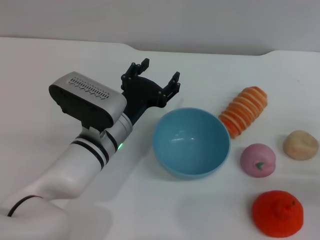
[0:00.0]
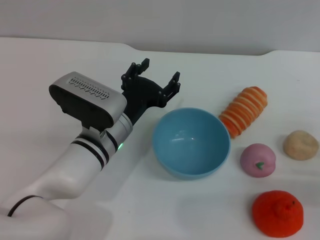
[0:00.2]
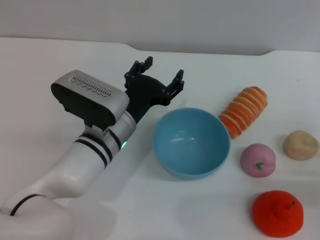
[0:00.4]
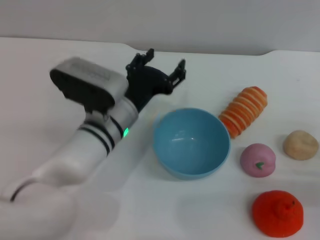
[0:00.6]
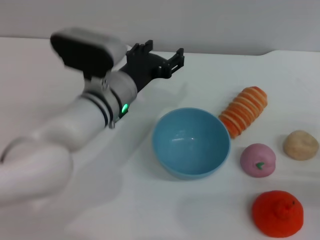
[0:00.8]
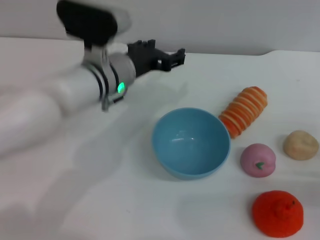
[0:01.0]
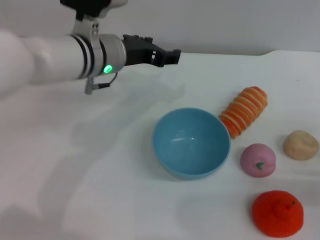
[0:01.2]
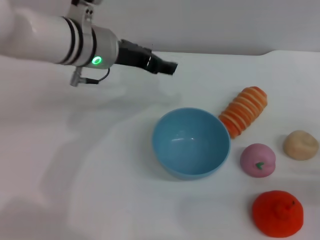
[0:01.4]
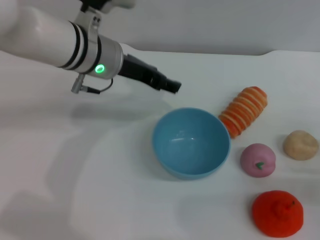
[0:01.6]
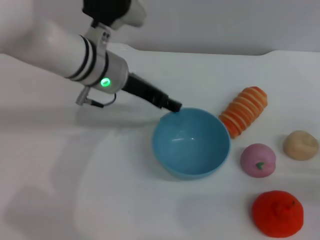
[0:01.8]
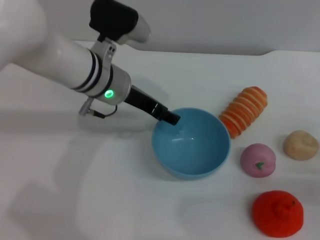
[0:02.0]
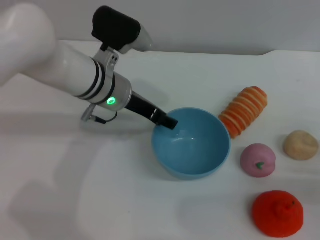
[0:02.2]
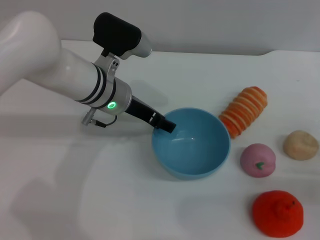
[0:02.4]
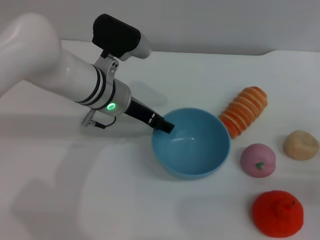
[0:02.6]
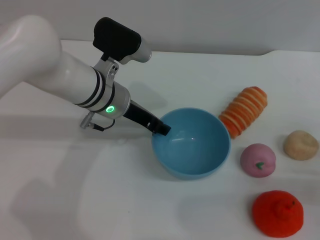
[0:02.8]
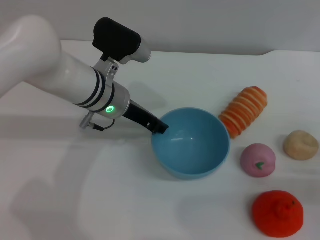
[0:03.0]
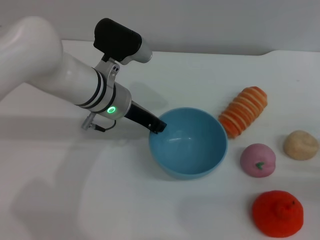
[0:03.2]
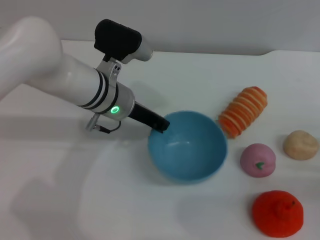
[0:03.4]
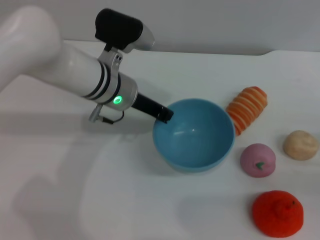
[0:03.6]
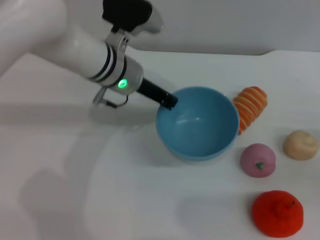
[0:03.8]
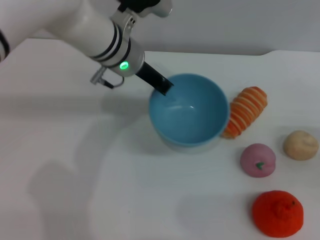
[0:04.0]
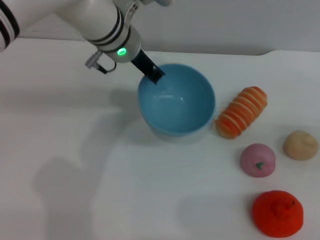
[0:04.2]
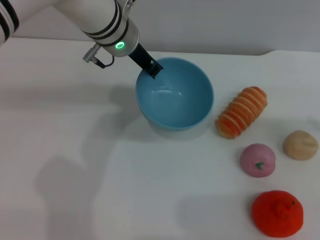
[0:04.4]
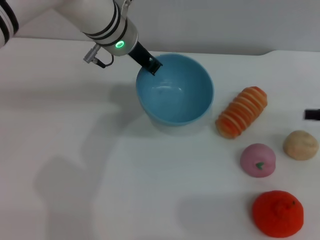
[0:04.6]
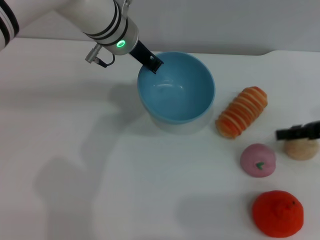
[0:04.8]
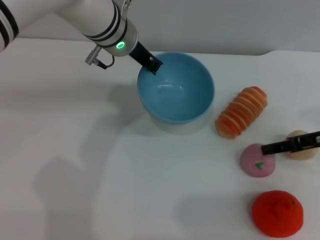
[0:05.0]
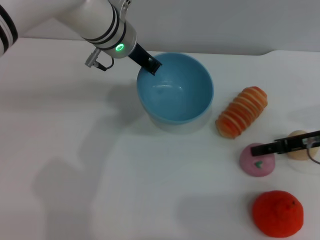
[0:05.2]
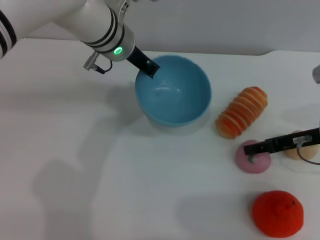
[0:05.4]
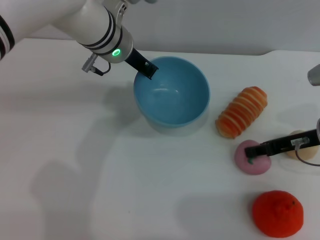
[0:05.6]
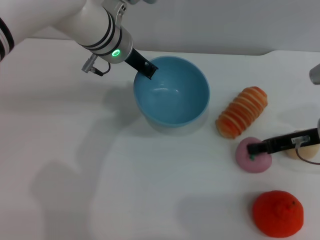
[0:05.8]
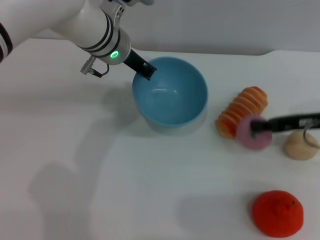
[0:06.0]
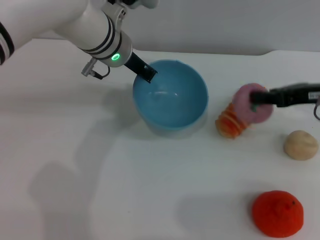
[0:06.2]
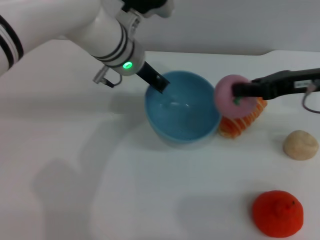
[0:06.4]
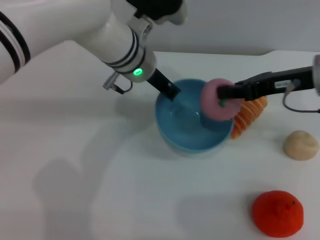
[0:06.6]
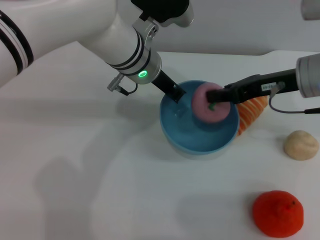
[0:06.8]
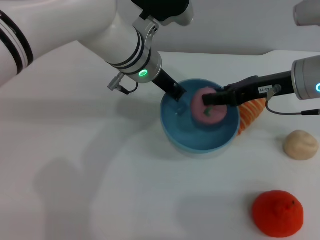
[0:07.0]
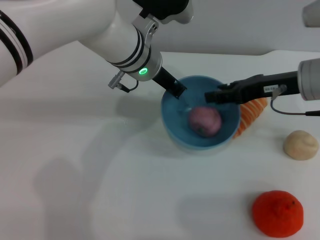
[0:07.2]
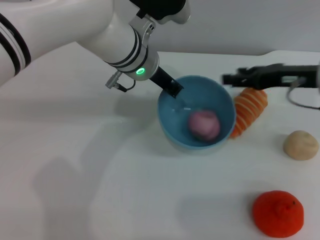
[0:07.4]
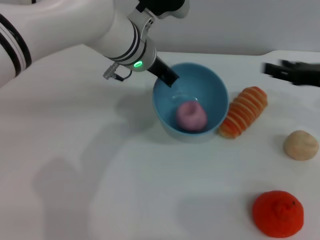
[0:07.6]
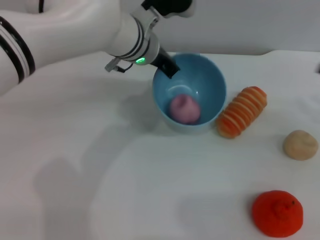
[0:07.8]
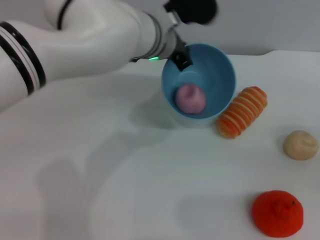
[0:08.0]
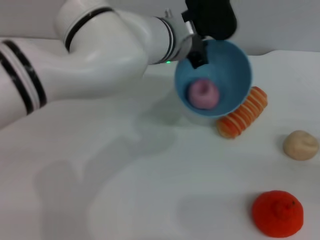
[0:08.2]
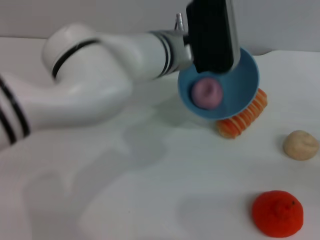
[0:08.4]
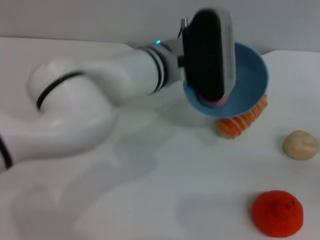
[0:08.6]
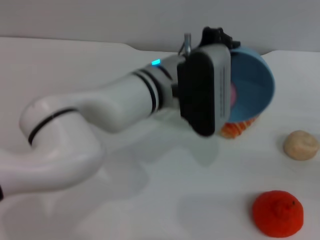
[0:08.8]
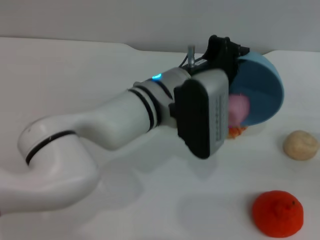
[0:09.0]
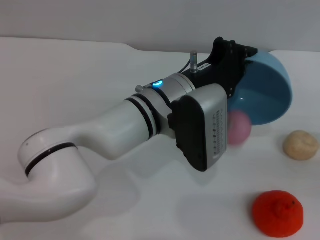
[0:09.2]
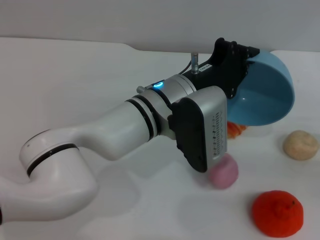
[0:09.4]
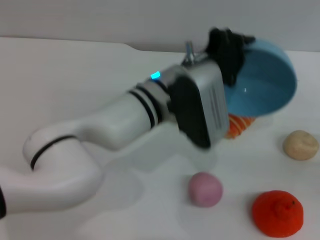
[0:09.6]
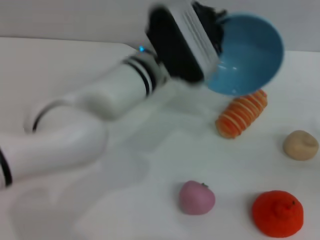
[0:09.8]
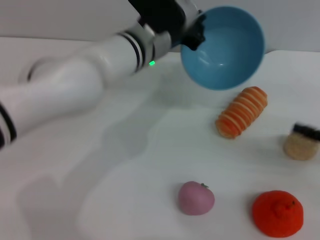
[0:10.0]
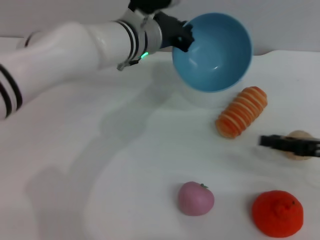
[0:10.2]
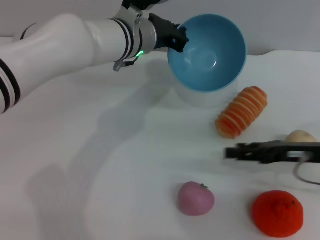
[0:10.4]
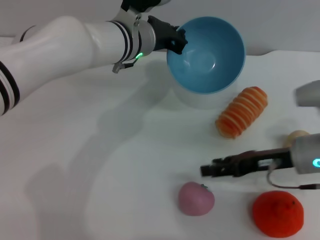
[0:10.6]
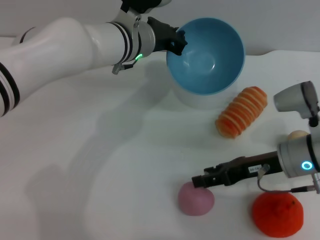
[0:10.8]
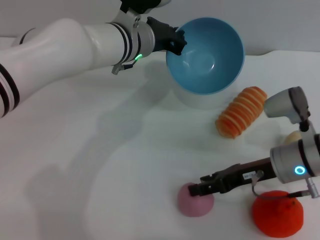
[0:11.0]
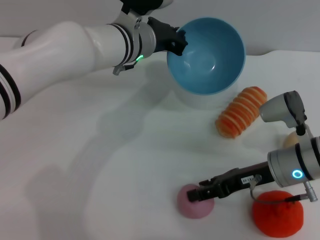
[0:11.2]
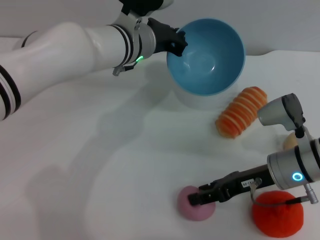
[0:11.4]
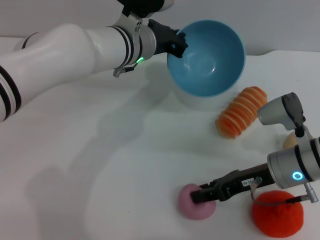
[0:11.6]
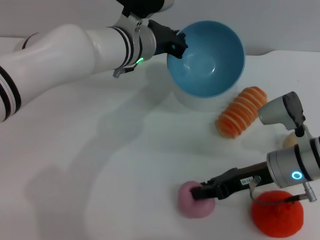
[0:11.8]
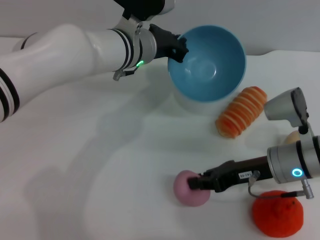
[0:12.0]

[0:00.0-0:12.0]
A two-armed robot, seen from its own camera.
Task of the whole recording: put the peach into the blue bowl and pour it out repeatedly.
Step, 0:00.0 to 0:03.4: Pick up the bowl with the left gripper.
Step, 0:03.6 to 0:05.8: Pick up the peach with the right gripper.
Step, 0:06.0 to 0:07.4: Place the peach into the bowl.
Step, 0:07.8 to 0:10.0: Pour the peach out of bowl.
Step, 0:10.2 to 0:11.8: Pick up the peach with the right gripper.
0:00.0 to 0:01.6: The left gripper shifts roughly 15 cm upward and forward.
0:01.6 to 0:03.0: The left gripper goes approximately 5 cm downward, and closes.
0:03.0 to 0:04.4: The right gripper is displaced upward, forward and to the right by about 15 cm; the left gripper shifts some 10 cm upward and forward, and closes its fingers.
0:04.4 to 0:06.0: The right gripper heads to the left, covering approximately 10 cm, and closes up.
0:06.0 to 0:07.6: The right gripper goes to the left and returns, roughly 5 cm each way, and opens up.
0:07.6 to 0:09.0: The left gripper travels backward by roughly 10 cm. The right gripper heads to the right, backward and downward, covering some 15 cm.
0:09.0 to 0:10.4: The left gripper travels forward by roughly 10 cm. The right gripper moves to the left, roughly 15 cm.
0:10.4 to 0:12.0: The right gripper moves to the left, approximately 10 cm, and closes.

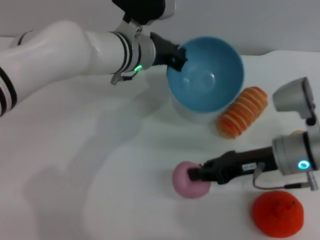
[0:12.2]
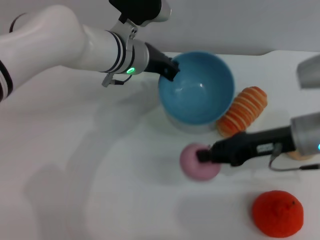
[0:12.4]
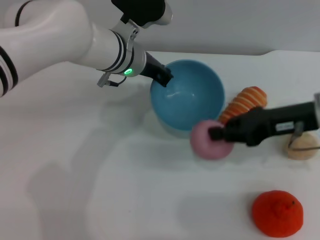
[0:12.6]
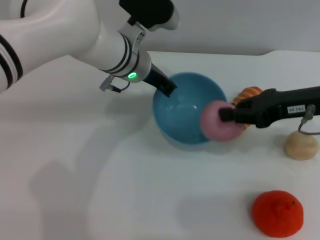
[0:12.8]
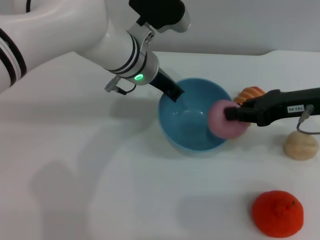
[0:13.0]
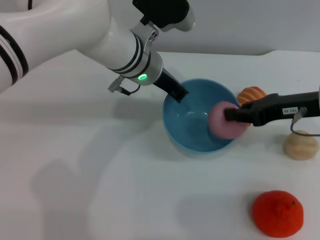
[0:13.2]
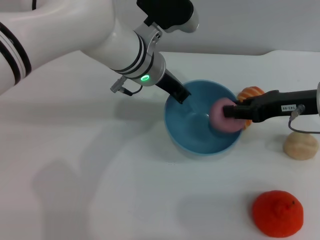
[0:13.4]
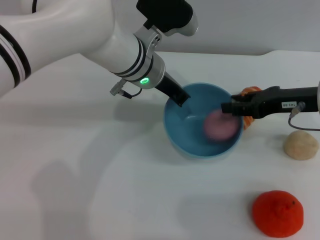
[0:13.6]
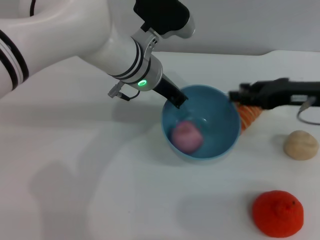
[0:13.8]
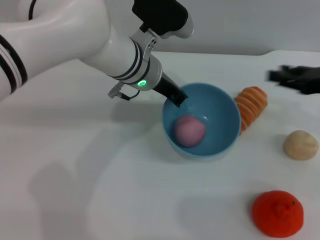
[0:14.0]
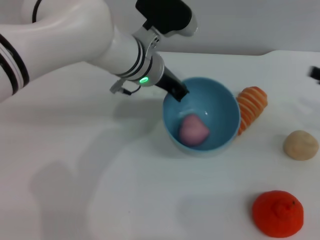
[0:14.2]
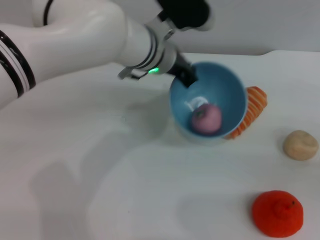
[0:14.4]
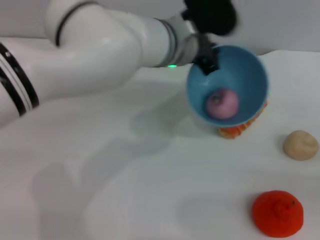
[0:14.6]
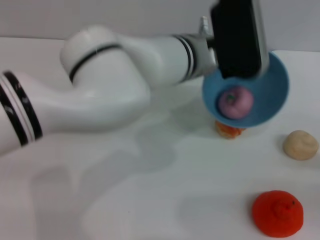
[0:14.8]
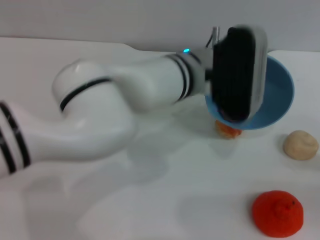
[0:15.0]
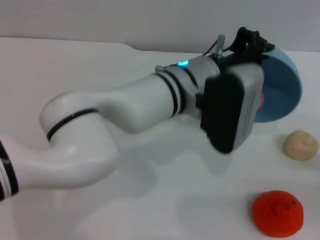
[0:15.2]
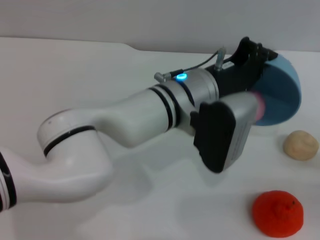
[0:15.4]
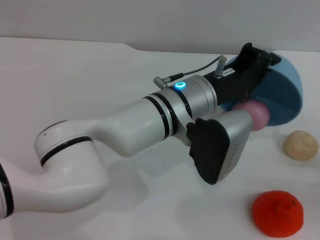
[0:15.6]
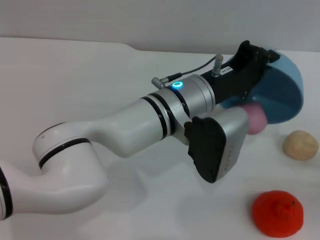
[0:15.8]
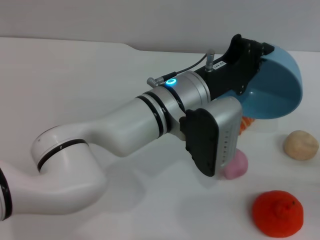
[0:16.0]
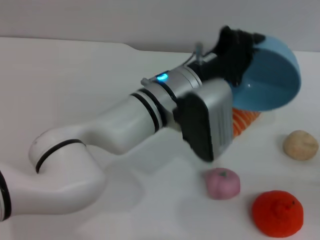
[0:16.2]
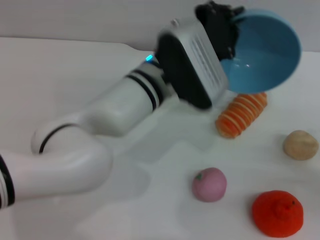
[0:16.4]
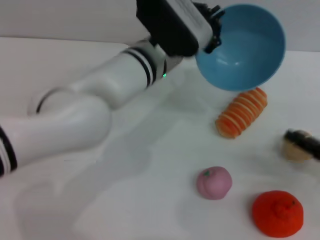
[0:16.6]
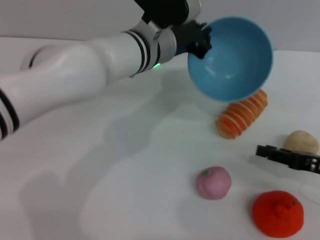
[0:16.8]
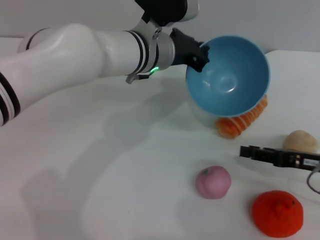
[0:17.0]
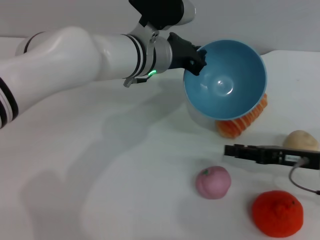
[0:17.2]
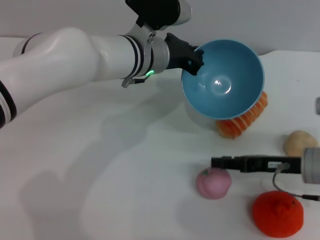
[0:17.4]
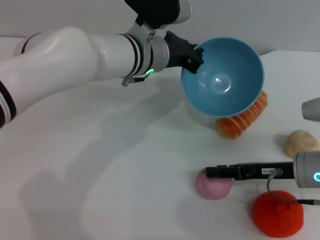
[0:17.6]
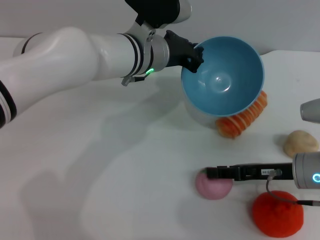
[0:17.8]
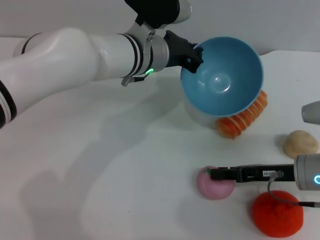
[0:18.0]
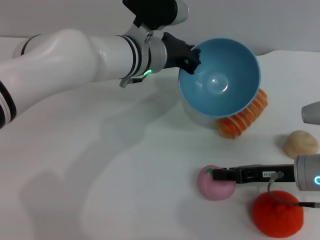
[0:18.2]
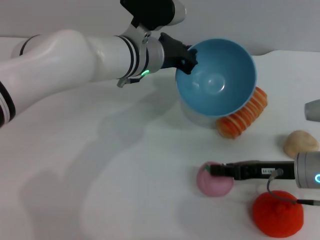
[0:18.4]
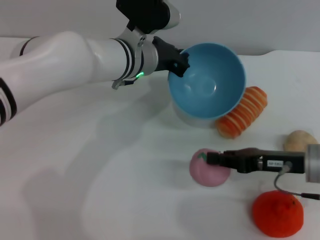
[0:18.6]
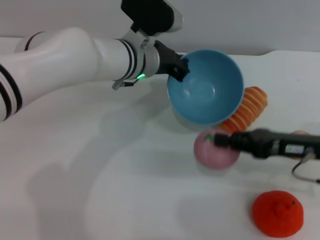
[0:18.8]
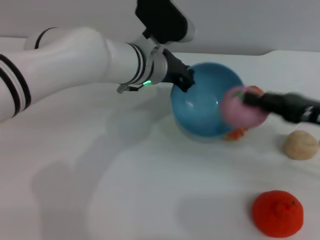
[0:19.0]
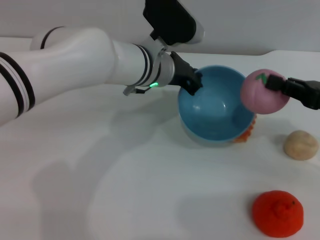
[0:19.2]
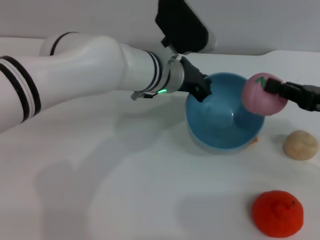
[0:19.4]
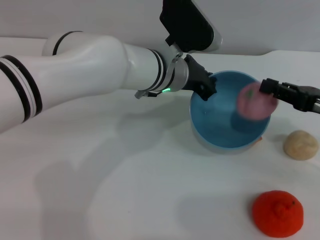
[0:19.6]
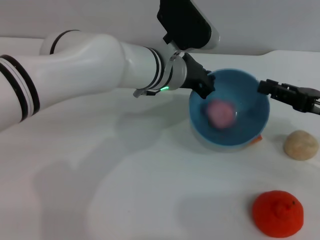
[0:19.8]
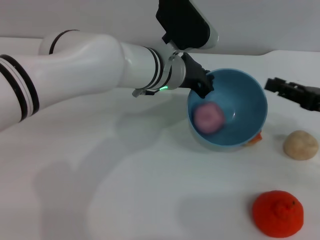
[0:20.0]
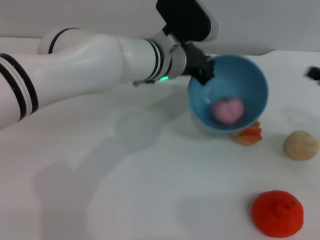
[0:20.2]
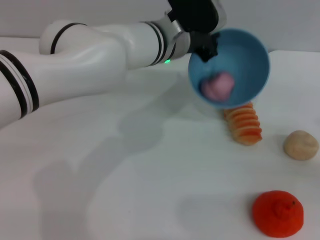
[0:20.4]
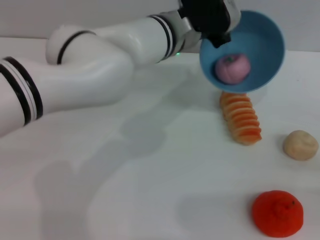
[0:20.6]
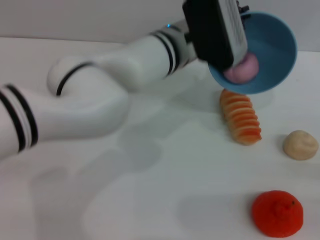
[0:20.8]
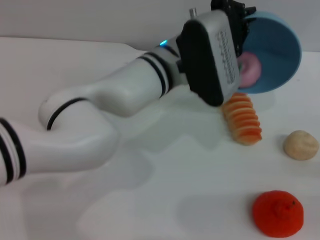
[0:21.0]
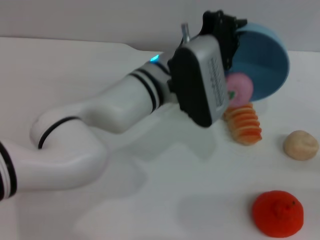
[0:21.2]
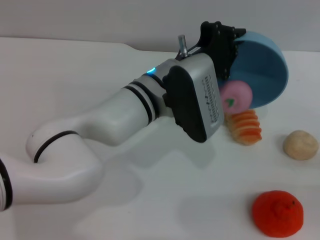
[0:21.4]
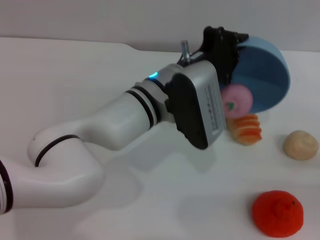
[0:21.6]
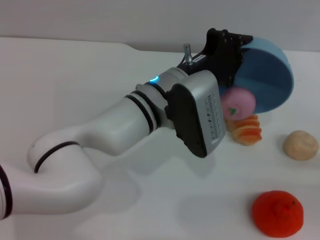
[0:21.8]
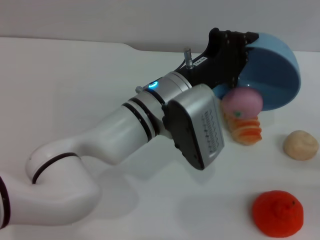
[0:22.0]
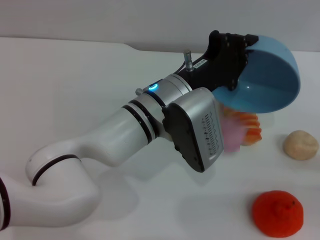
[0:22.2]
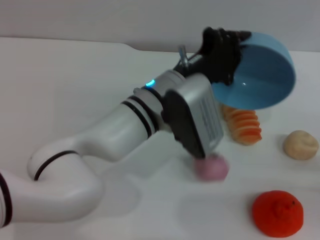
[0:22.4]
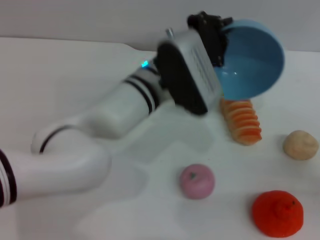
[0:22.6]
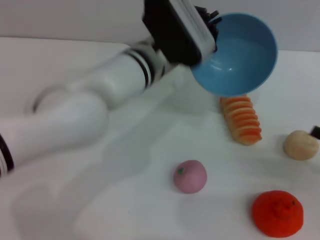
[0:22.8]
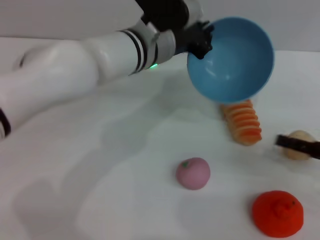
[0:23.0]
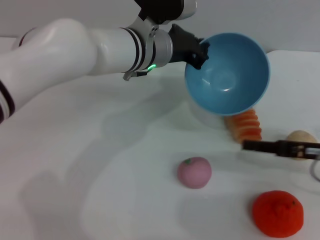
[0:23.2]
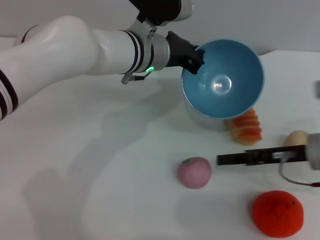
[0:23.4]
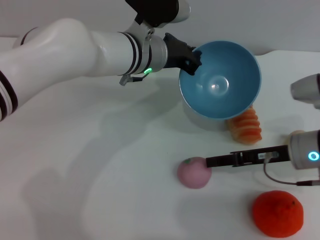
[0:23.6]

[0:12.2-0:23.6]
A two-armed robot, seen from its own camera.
Task of the whole recording: put the peach into the blue bowl and pour it out repeatedly.
Step, 0:12.2 to 0:13.8: Place the peach into the bowl.
Step, 0:14.2 to 0:16.4: Pour the peach out of bowl.
Step, 0:16.8 to 0:18.6: Pick up the peach with the right gripper.
Step, 0:18.8 to 0:20.0: Place the peach into the bowl.
Step, 0:20.2 to 0:22.8: Pour the peach out of bowl.
0:12.2 to 0:13.6: The right gripper shifts some 5 cm upward.
0:13.6 to 0:15.0: The left gripper goes approximately 5 cm to the right, while the right gripper goes about 25 cm to the right, backward and downward, and opens.
0:16.4 to 0:17.8: The left gripper shifts about 5 cm forward. Meanwhile the right gripper travels to the left and forward by about 15 cm.
0:17.8 to 0:19.4: The right gripper moves upward and to the right, roughly 10 cm, and closes up.
0:19.4 to 0:20.8: The right gripper goes approximately 20 cm backward, to the right and downward, and opens its fingers.
0:20.8 to 0:22.2: The left gripper moves backward, some 10 cm.
0:22.2 to 0:23.6: The right gripper heads to the left and forward, covering roughly 20 cm. The left gripper moves forward, roughly 10 cm.
